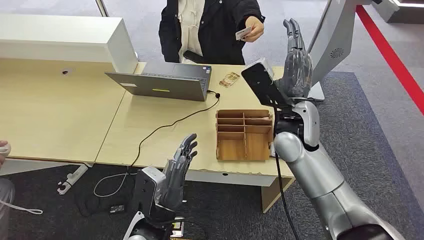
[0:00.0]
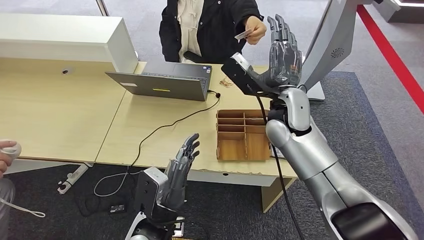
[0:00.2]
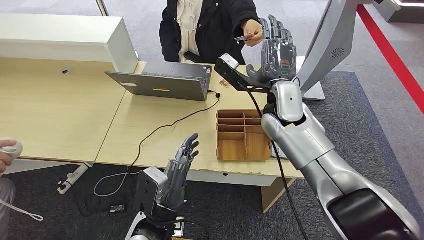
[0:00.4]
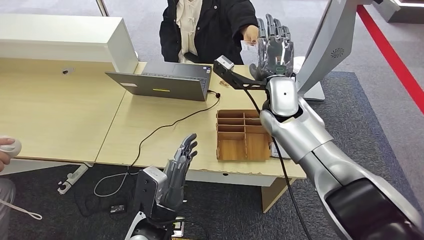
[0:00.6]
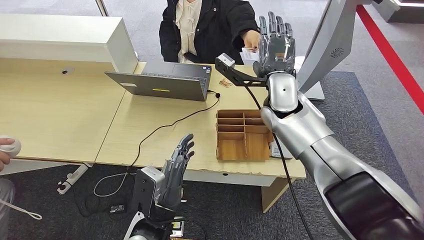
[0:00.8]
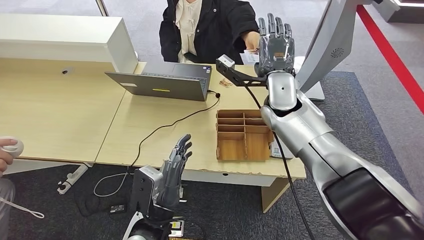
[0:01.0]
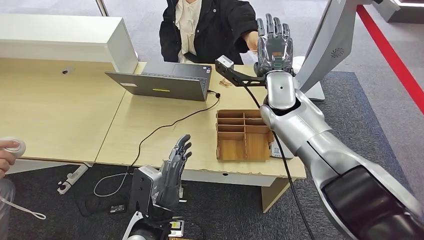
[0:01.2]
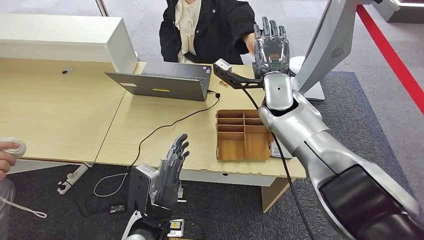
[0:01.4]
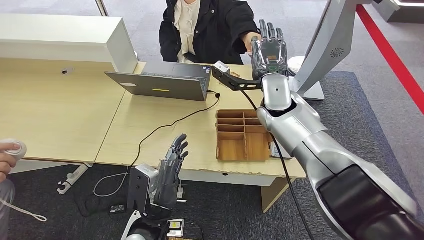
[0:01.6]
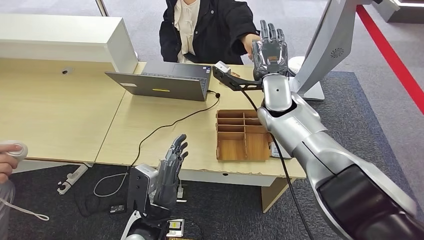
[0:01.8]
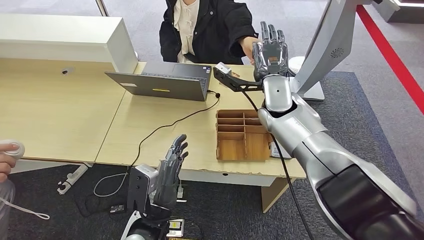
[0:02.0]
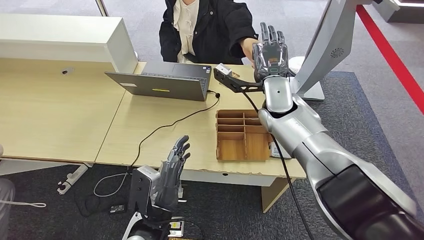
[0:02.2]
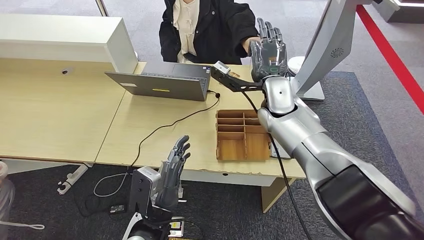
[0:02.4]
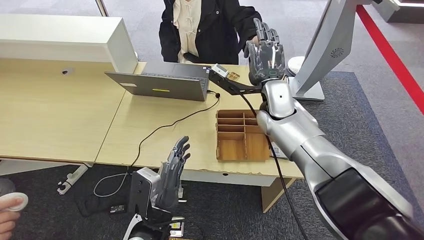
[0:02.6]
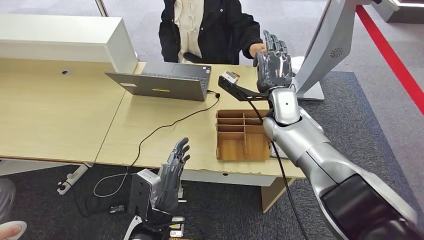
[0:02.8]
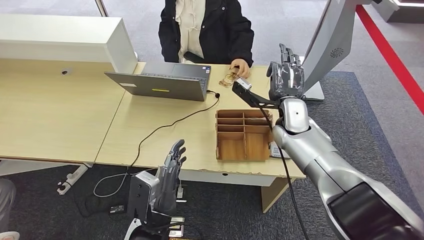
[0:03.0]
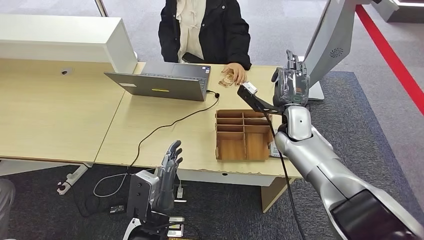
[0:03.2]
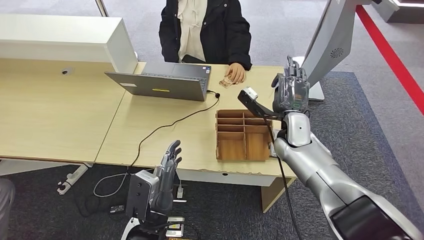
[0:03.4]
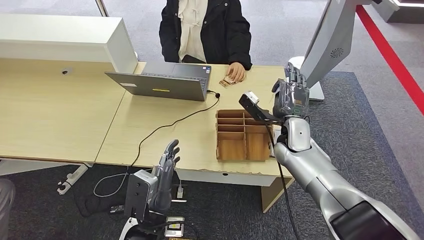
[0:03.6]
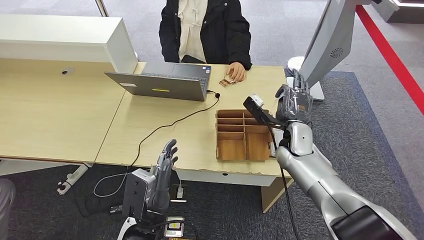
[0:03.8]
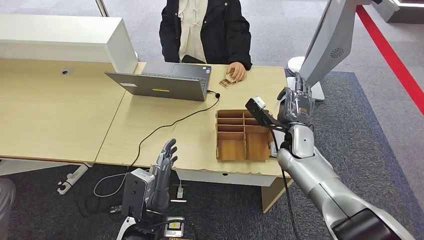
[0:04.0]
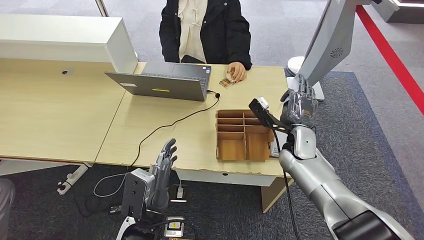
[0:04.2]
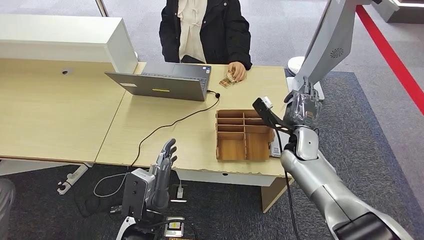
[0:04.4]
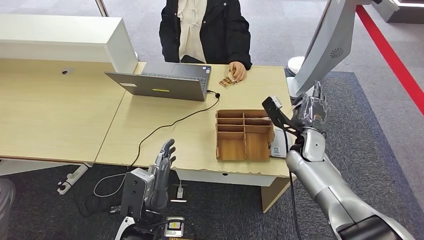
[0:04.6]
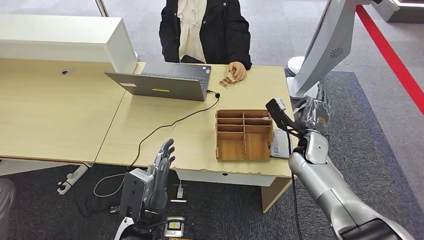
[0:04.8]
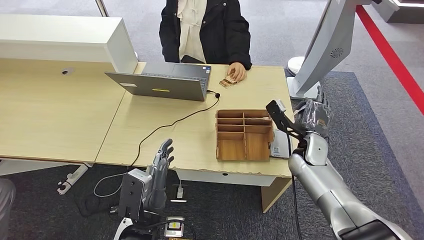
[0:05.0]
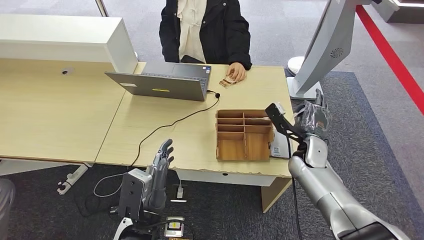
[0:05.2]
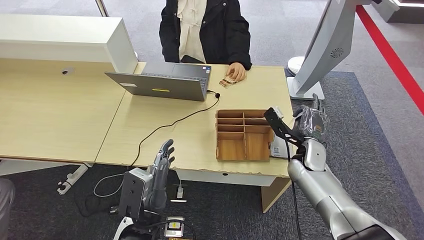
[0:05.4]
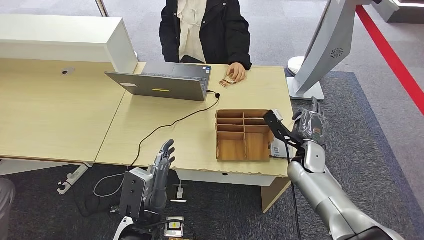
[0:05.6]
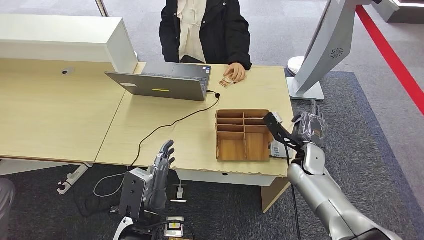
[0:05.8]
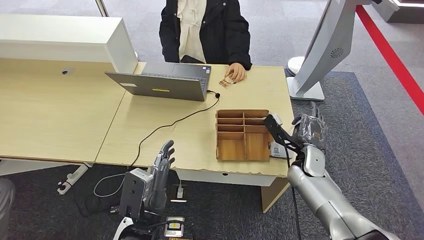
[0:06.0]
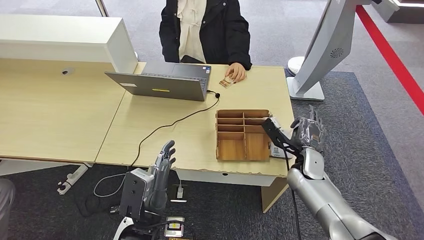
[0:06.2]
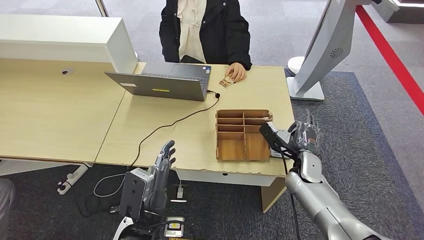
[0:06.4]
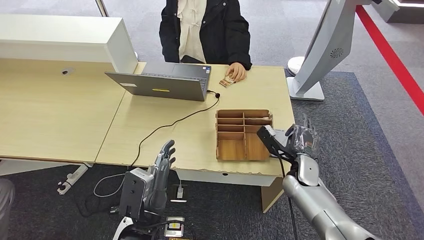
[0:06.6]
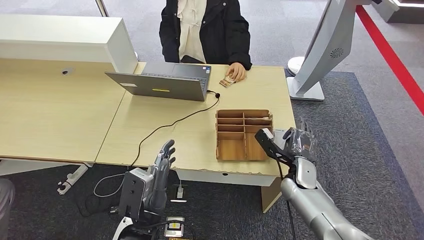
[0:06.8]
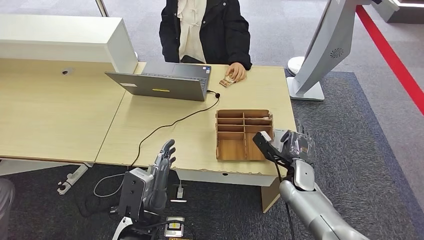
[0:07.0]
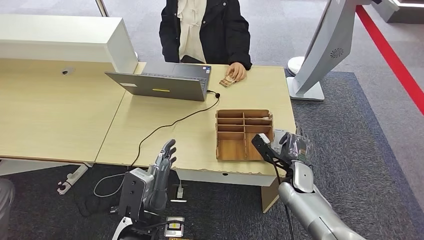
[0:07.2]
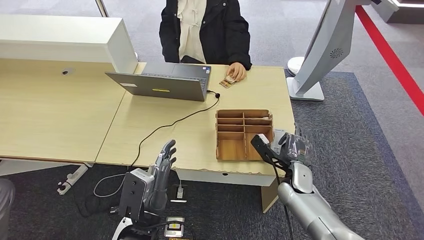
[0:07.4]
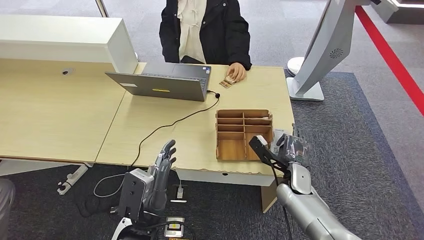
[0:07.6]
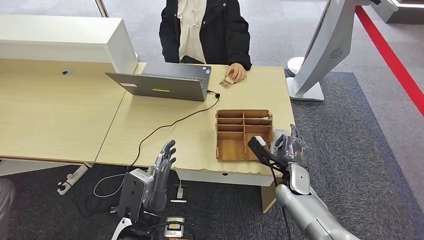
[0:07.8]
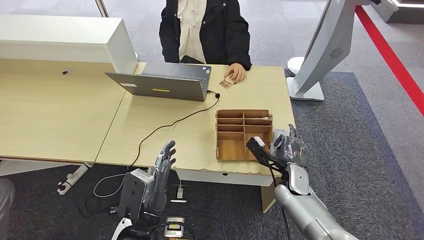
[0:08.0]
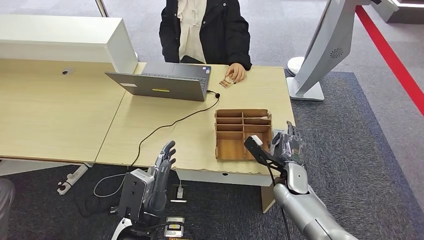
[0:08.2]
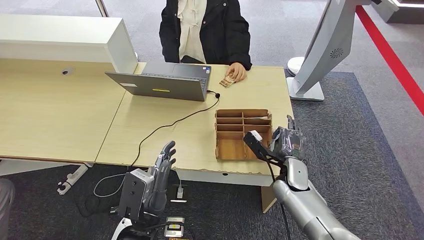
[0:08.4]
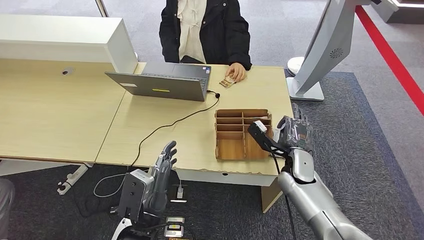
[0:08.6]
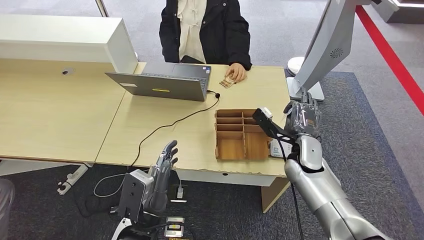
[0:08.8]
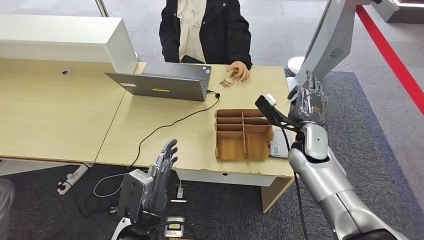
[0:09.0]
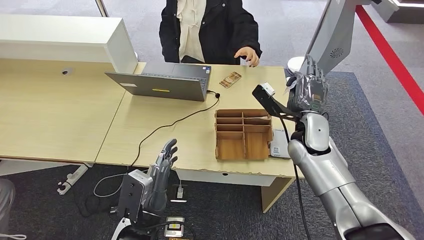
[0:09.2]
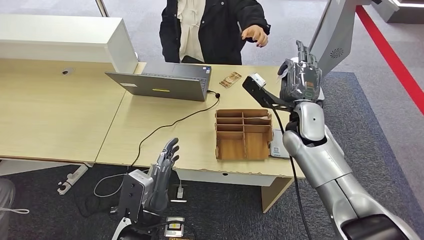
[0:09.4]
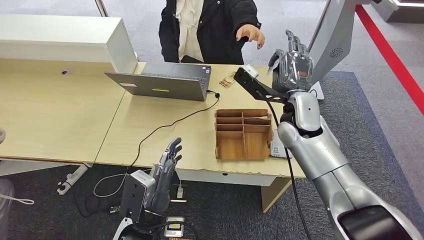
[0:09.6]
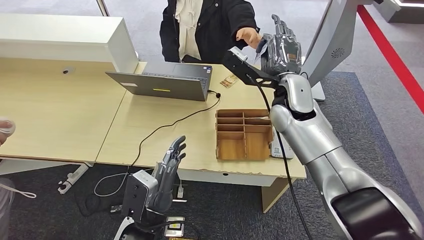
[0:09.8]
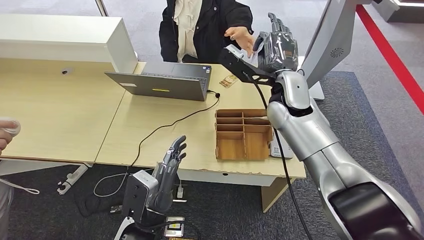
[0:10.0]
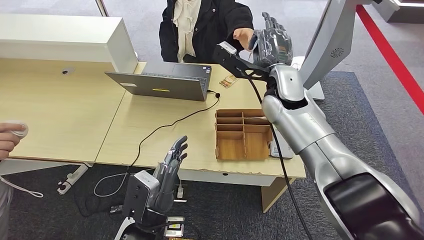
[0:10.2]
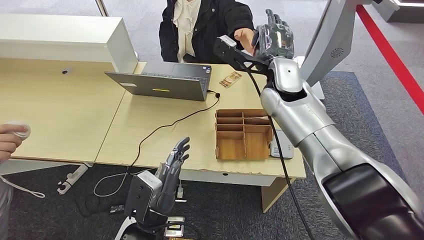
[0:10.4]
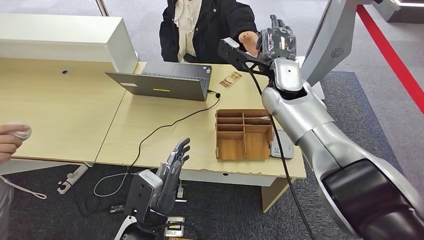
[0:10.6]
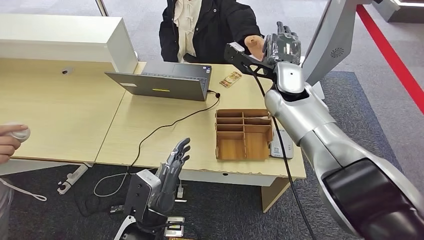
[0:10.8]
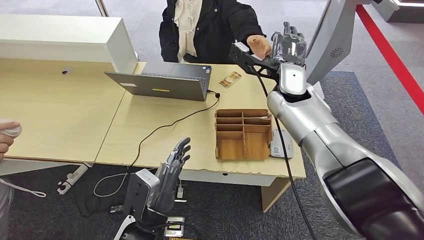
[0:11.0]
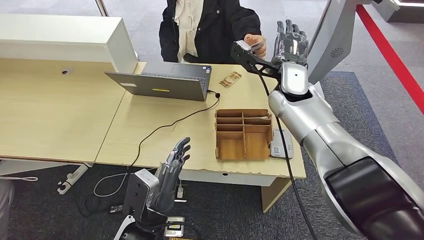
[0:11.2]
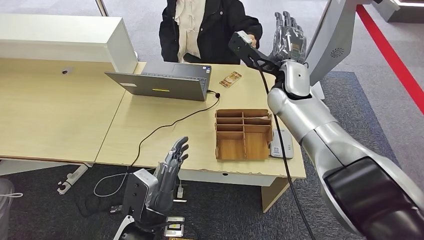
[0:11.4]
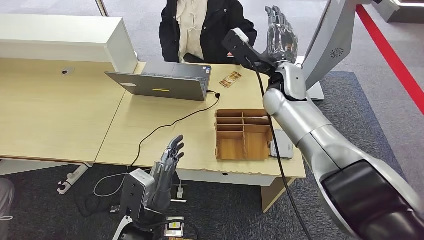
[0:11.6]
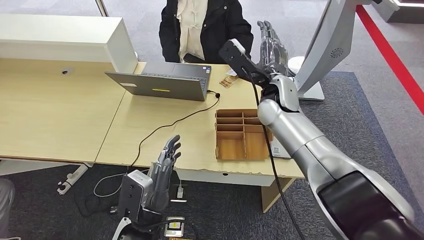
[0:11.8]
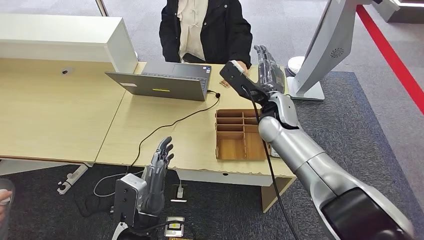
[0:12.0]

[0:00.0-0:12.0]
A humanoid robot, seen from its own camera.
Step, 0:00.0 to 0:03.2: Take the ID card from the person's hand.
Step, 0:03.4 to 0:10.2: Place the ID card on the card reader.
0:01.6 to 0:03.0: The right hand is displaced downward and to the right by approximately 10 cm.
0:03.0 to 0:04.4: The right hand is displaced downward by some 5 cm.
0:04.4 to 0:06.0: The right hand changes place by approximately 5 cm.
0:06.0 to 0:07.6: The right hand shifts by approximately 5 cm.
0:07.6 to 0:09.0: The right hand goes about 15 cm upward and forward.

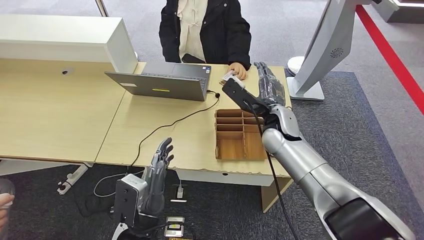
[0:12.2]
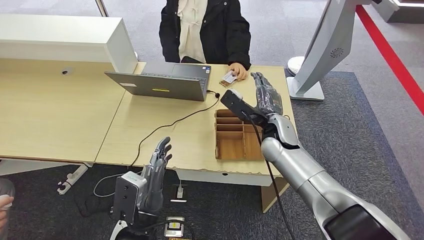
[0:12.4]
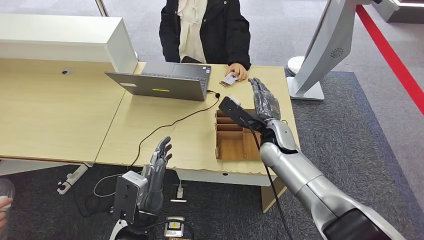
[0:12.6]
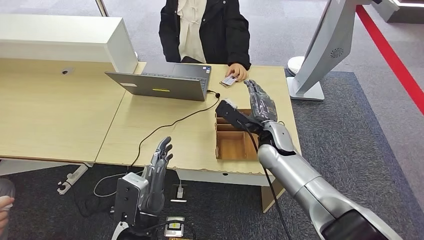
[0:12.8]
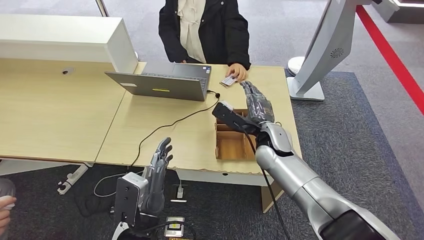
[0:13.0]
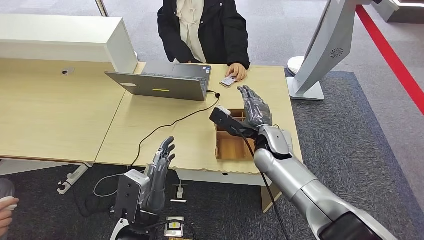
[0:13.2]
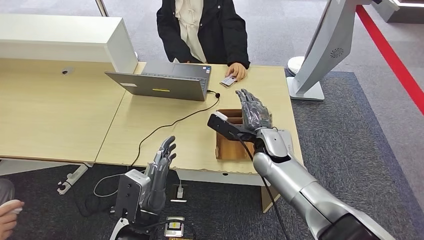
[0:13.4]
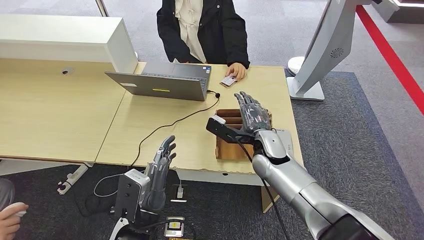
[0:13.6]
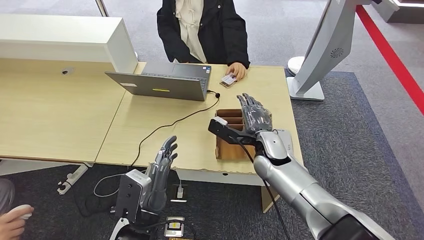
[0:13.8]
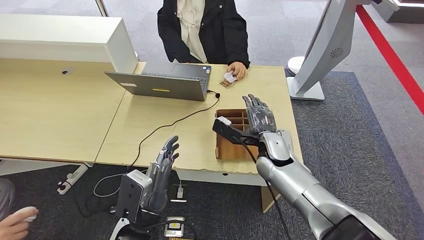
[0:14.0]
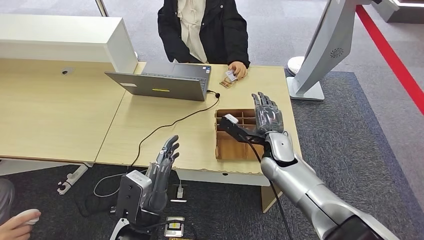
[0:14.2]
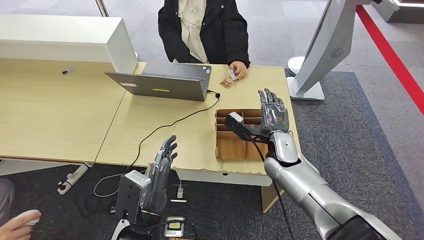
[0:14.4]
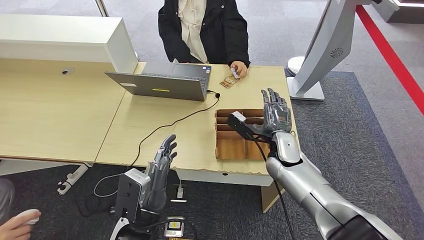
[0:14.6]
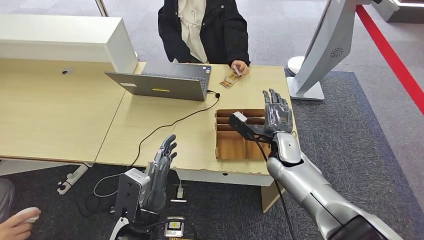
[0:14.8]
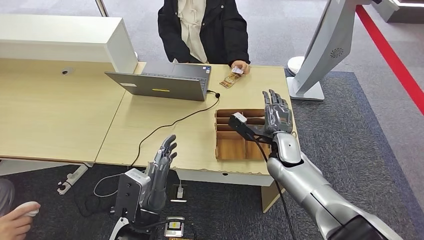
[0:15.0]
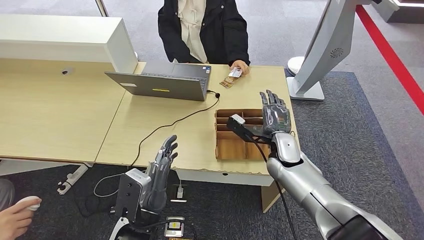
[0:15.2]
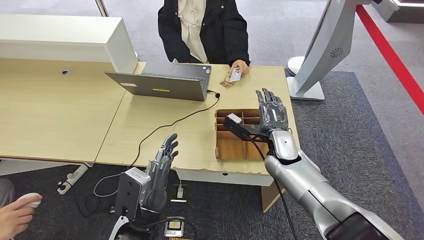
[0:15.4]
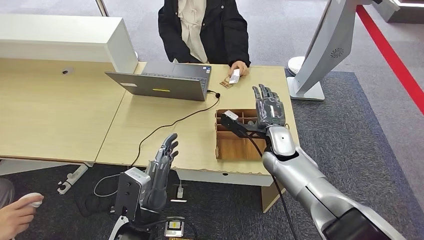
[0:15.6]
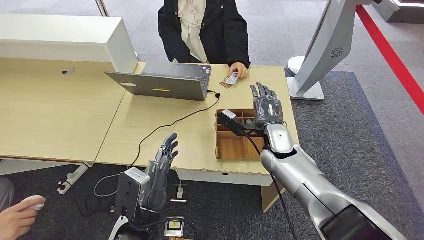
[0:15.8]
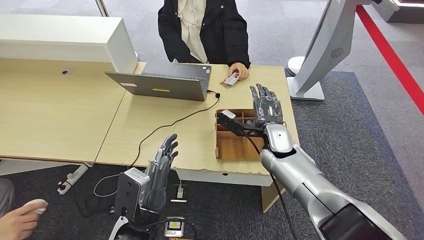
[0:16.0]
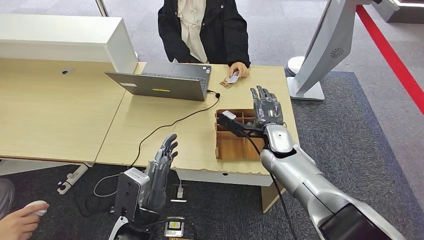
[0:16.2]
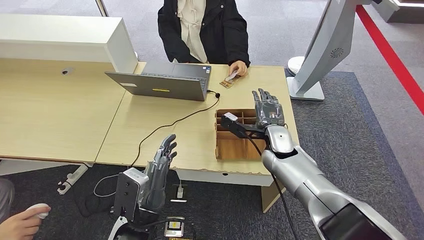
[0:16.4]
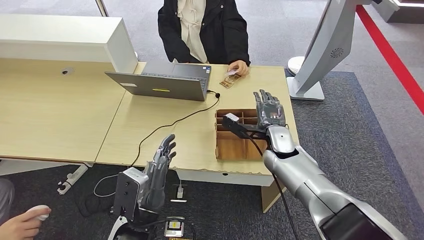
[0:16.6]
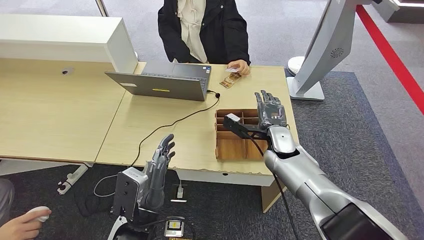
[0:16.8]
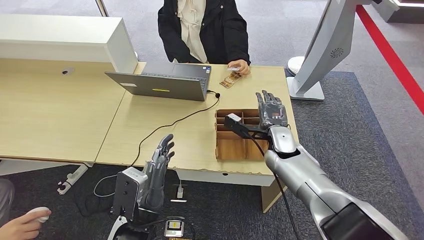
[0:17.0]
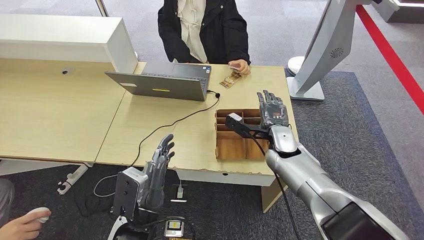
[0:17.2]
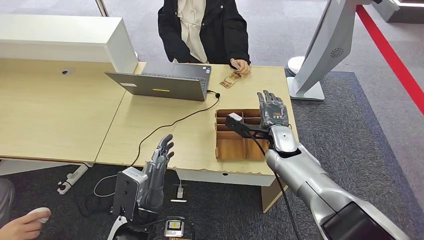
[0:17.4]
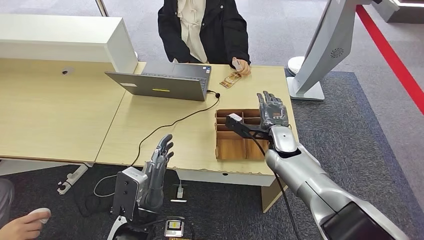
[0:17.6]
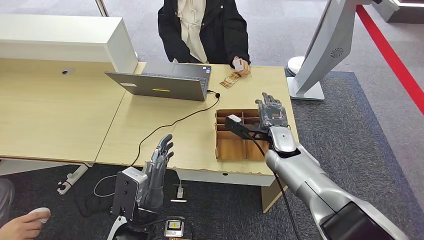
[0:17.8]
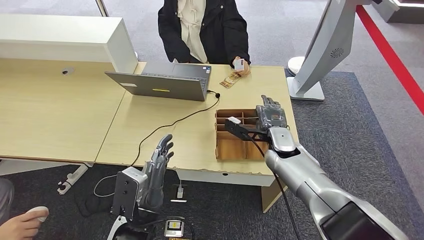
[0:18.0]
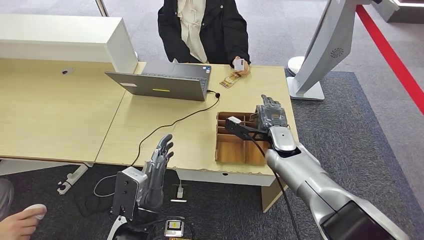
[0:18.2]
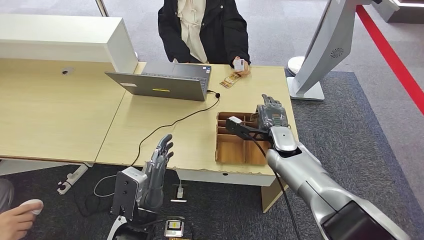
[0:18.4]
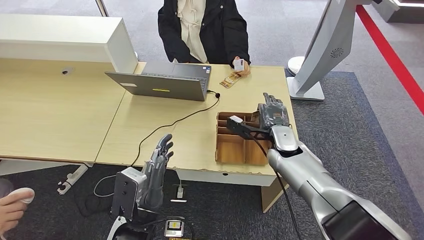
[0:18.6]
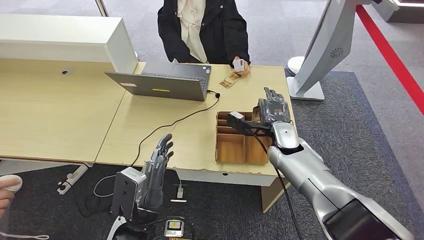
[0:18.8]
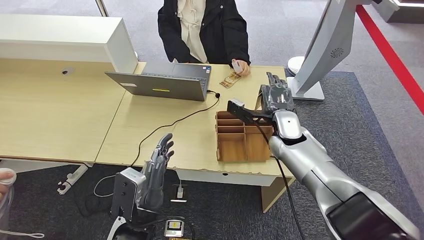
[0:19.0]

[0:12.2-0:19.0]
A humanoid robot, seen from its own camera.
0:12.2 to 0:13.6: The right hand is displaced downward by some 5 cm.
0:13.6 to 0:15.0: The right hand changes place by approximately 5 cm.
0:15.0 to 0:17.6: The hands move only a little.
0:17.6 to 0:19.0: There are only small adjustments of the hands.
